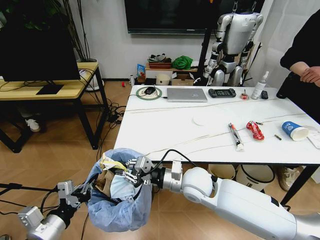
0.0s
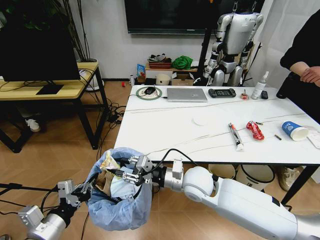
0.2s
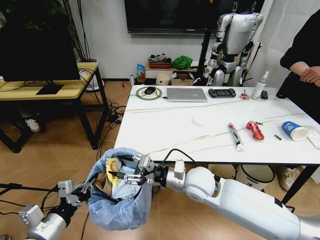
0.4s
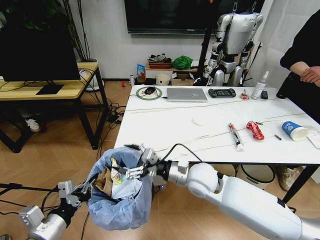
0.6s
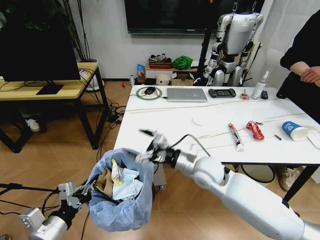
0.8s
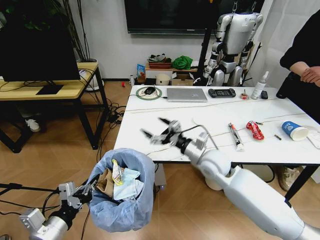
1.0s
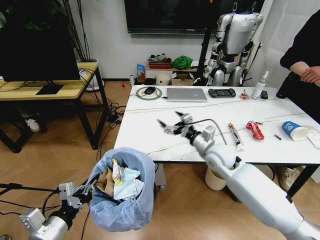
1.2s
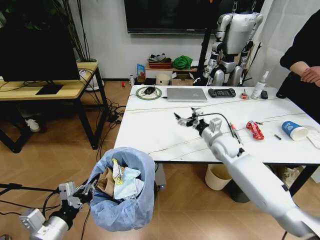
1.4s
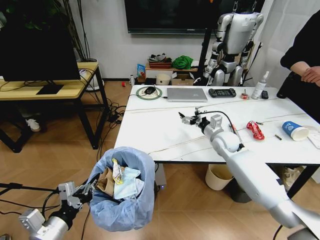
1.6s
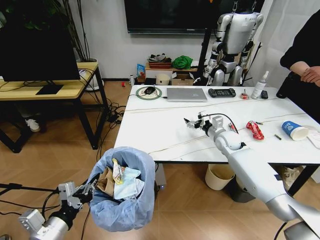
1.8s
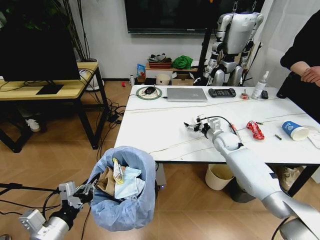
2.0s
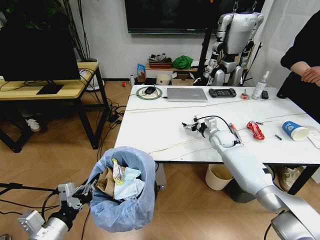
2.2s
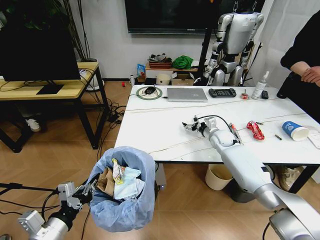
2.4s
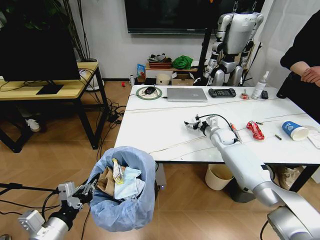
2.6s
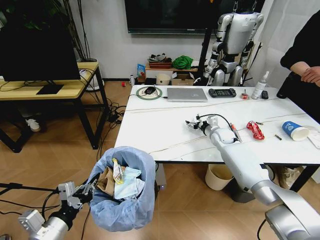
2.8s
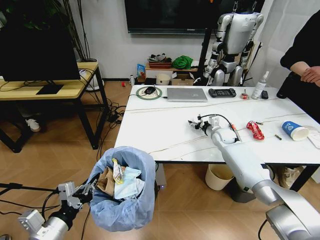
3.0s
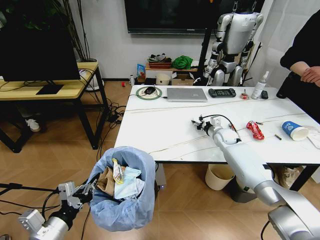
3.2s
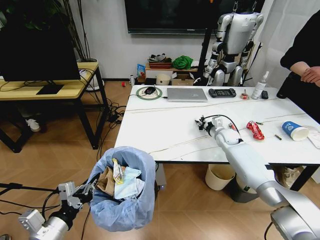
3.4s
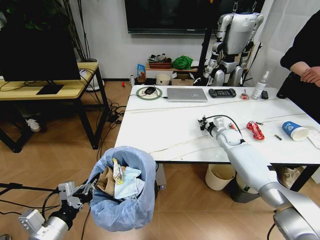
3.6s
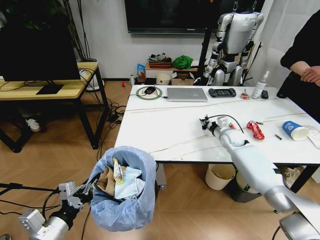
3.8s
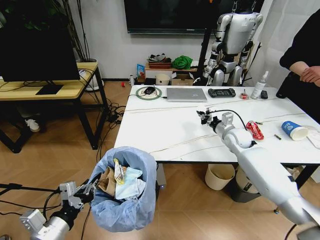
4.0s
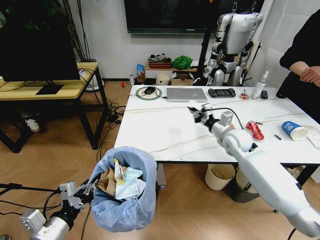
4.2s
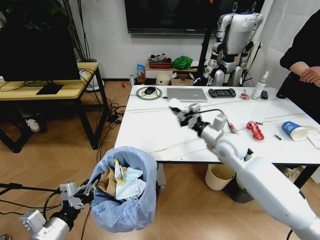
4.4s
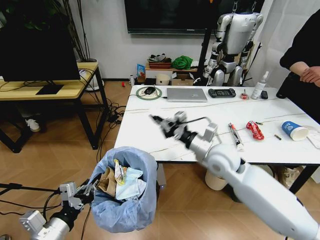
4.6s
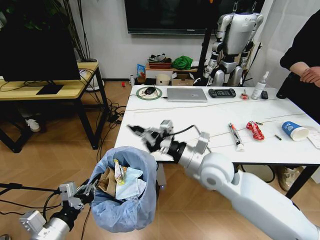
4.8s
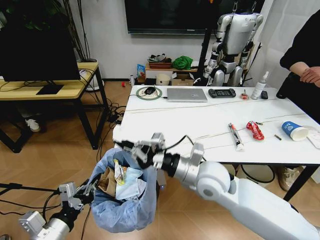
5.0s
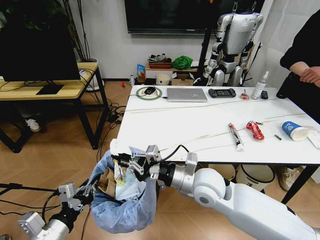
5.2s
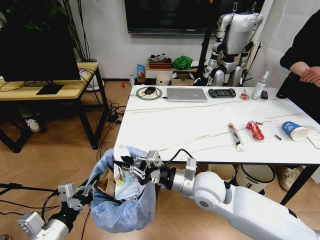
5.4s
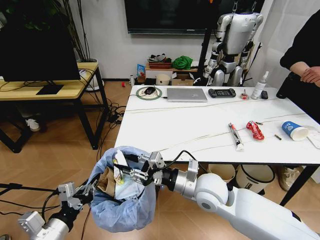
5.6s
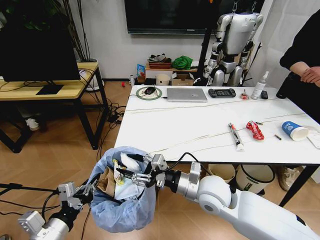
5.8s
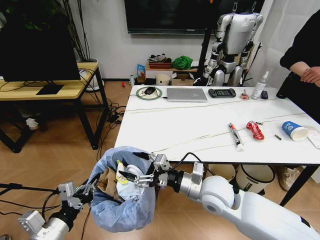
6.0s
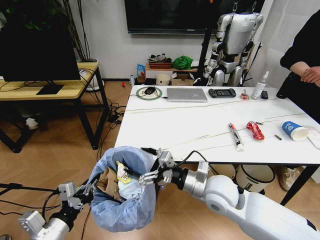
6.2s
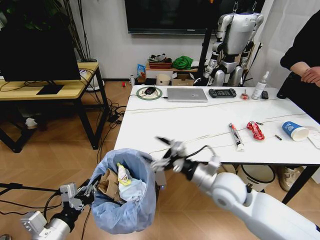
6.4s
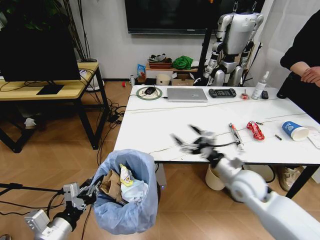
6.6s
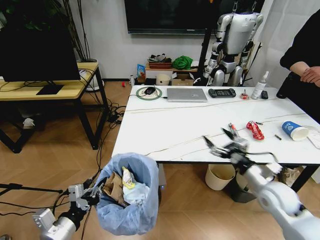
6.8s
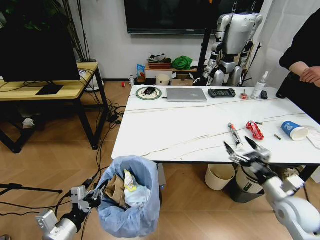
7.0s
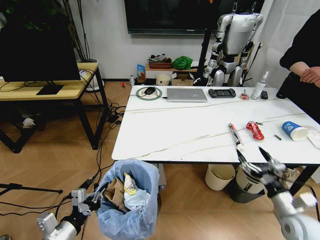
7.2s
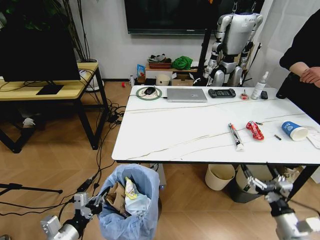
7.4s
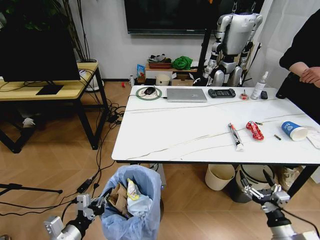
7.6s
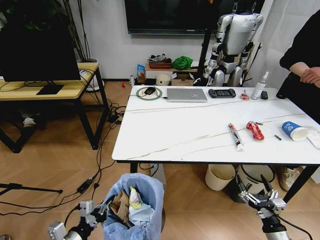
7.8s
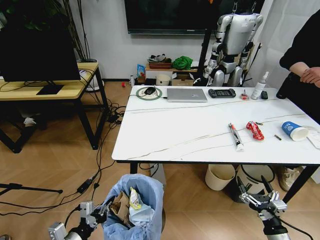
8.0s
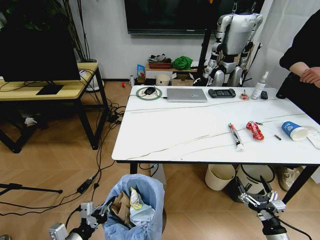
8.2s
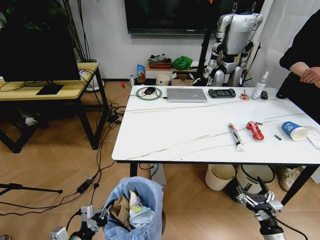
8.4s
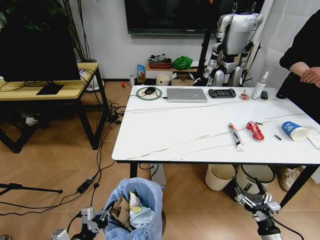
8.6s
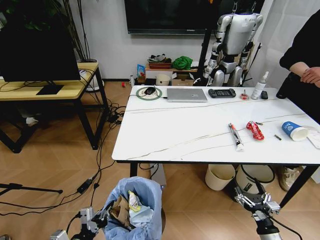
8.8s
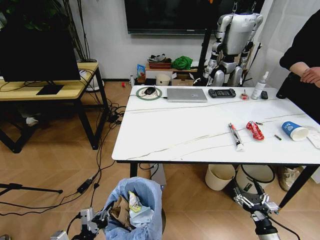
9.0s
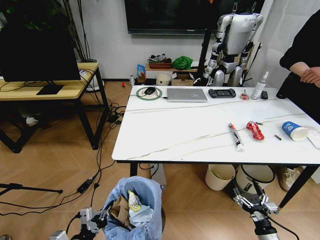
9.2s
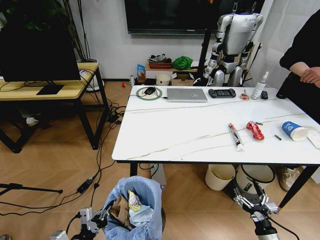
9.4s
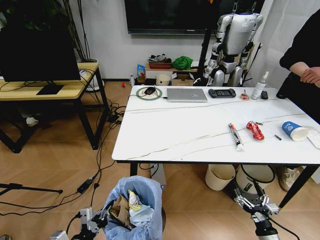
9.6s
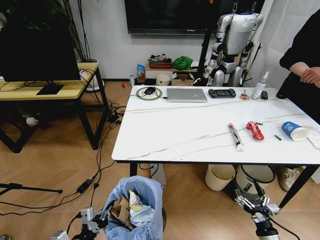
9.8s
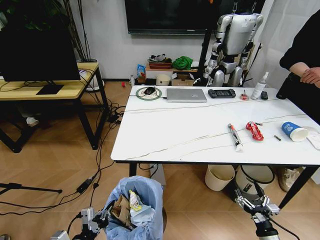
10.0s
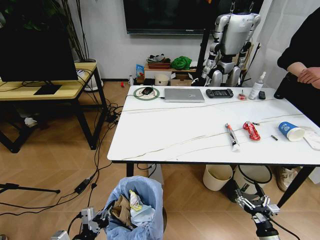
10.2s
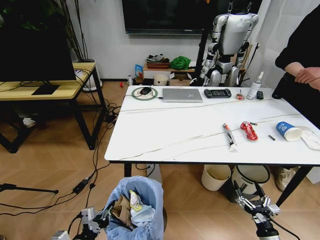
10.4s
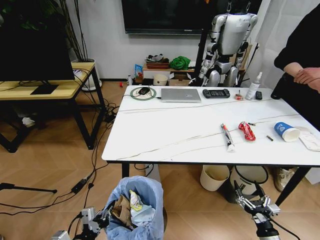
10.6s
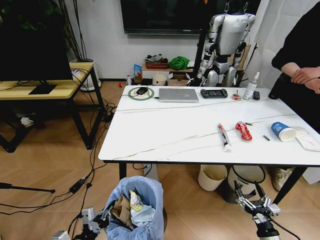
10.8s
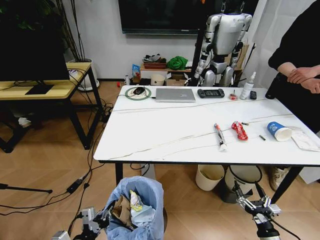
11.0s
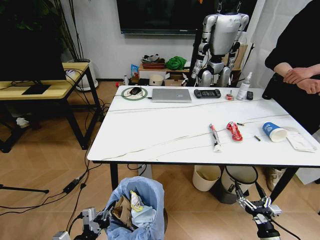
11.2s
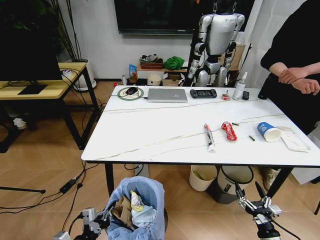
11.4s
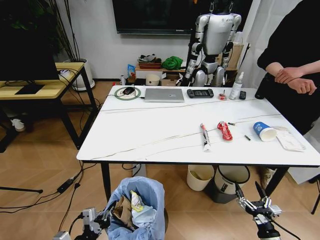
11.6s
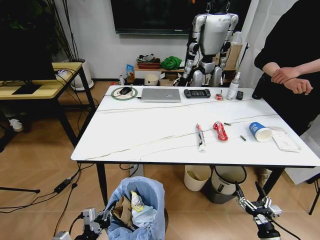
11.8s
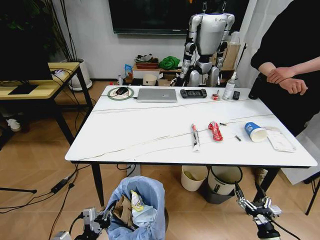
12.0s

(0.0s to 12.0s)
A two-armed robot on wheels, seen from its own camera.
Task of the whole recording: Pick up the trash bin and place the trash from the table into it.
0.0s - 1.6s: The right gripper heads forward and to the right, covering about 25 cm, and opens up.
1.6s - 3.0s: The right gripper goes approximately 5 cm forward.
3.0s - 4.4s: The right gripper is displaced backward, upward and to the left by about 20 cm, and closes.
4.4s - 6.0s: The right gripper is displaced backward and to the left by approximately 15 cm, and opens.
6.0s - 7.6s: The left gripper moves downward, some 5 cm. Meanwhile the right gripper is displaced to the right, backward and downward by roughly 30 cm.
7.6s - 9.0s: The left gripper ends up roughly 5 cm from where it was. Meanwhile the right gripper heads downward, covering approximately 5 cm.

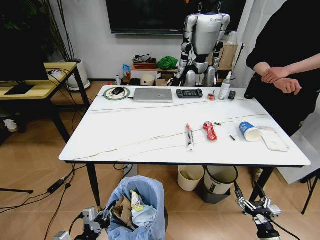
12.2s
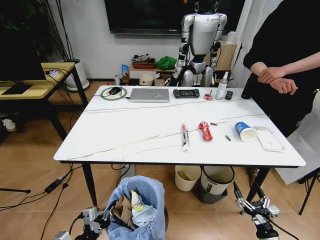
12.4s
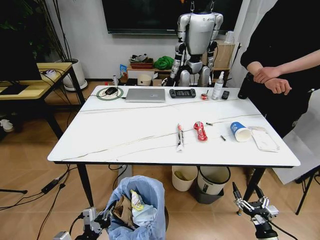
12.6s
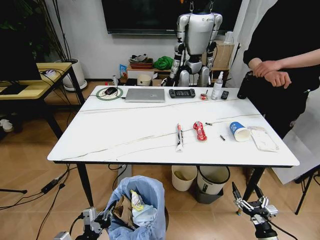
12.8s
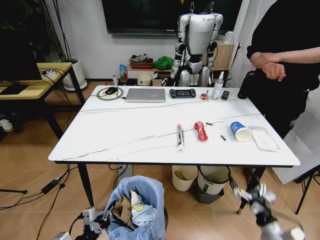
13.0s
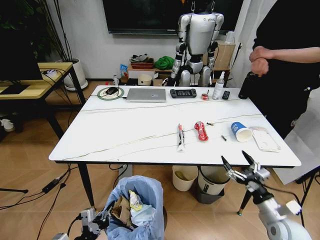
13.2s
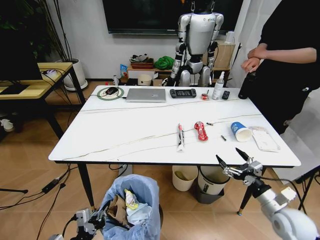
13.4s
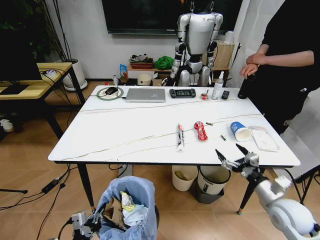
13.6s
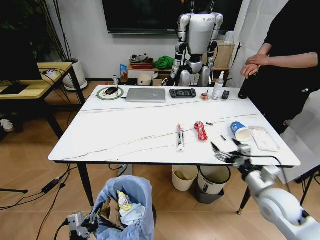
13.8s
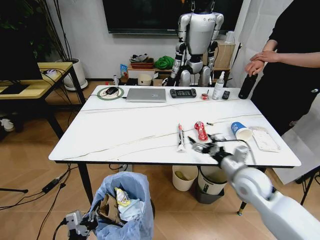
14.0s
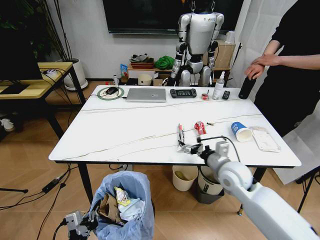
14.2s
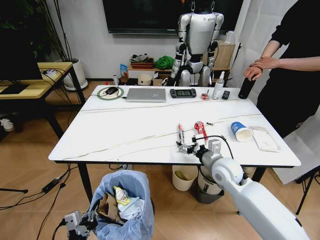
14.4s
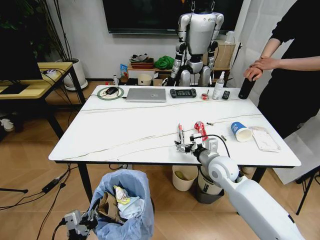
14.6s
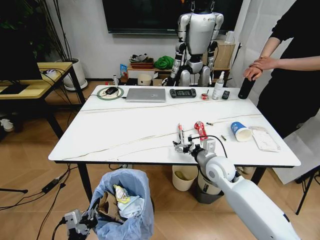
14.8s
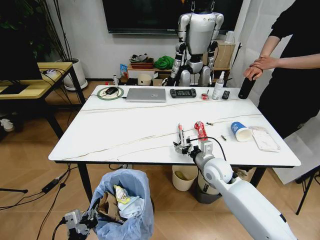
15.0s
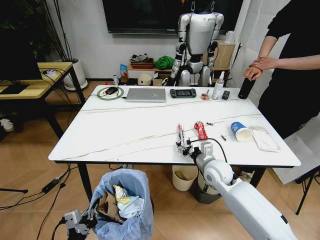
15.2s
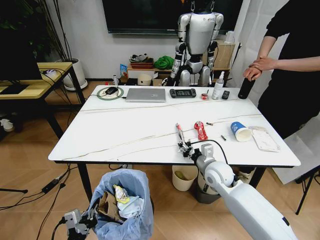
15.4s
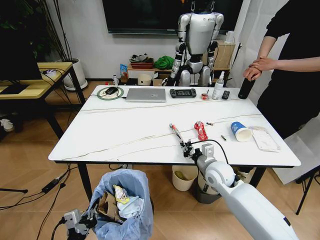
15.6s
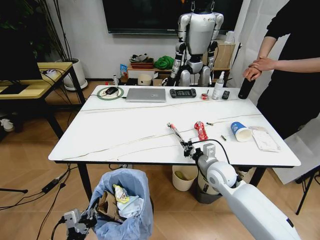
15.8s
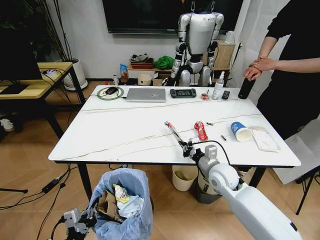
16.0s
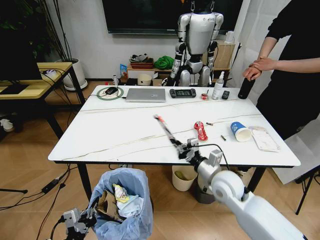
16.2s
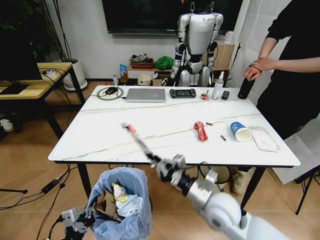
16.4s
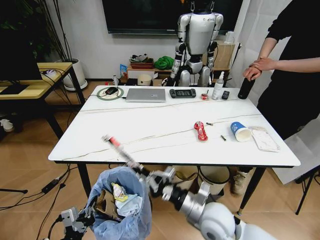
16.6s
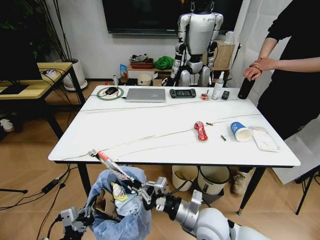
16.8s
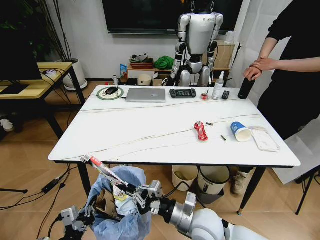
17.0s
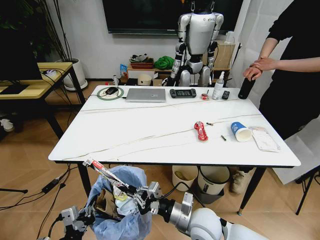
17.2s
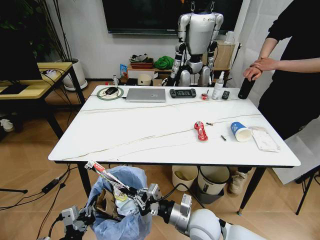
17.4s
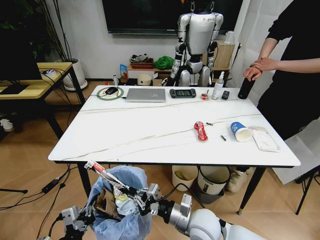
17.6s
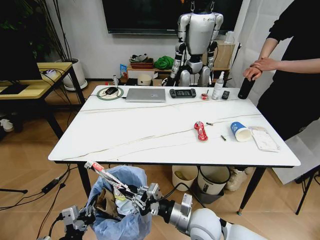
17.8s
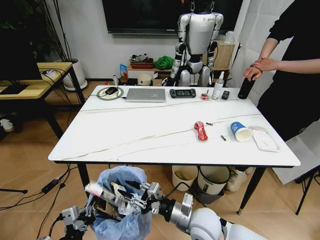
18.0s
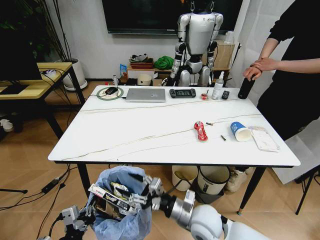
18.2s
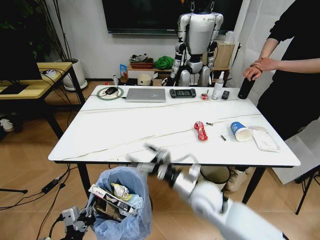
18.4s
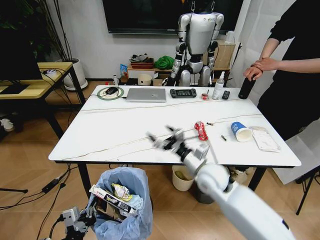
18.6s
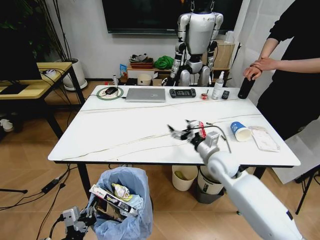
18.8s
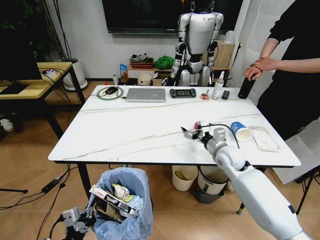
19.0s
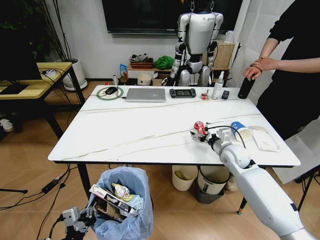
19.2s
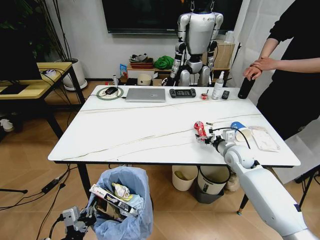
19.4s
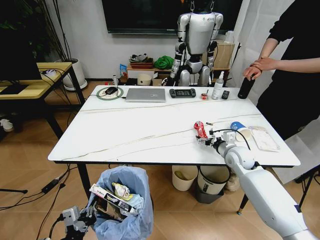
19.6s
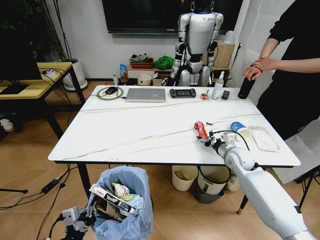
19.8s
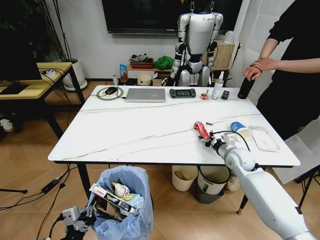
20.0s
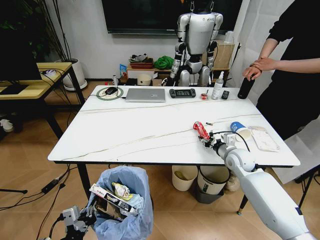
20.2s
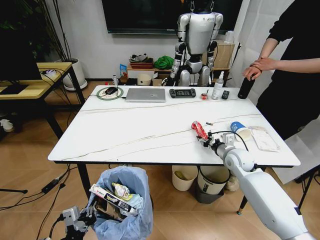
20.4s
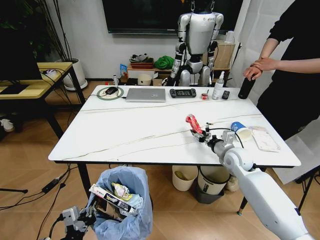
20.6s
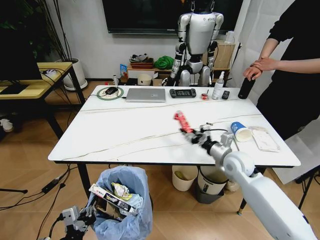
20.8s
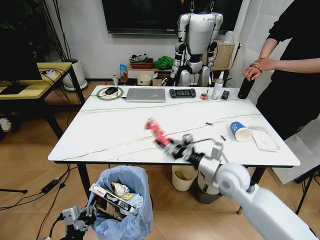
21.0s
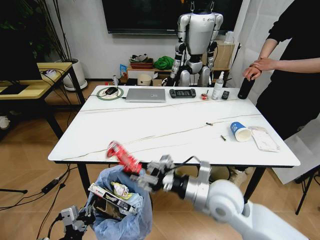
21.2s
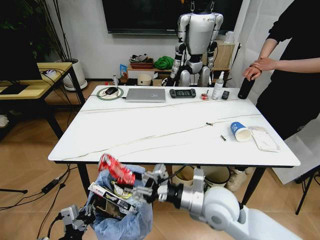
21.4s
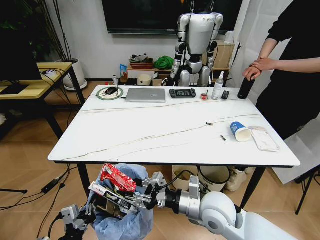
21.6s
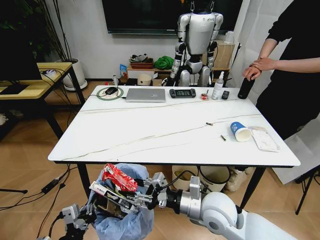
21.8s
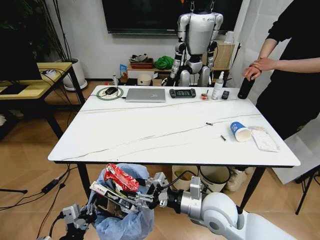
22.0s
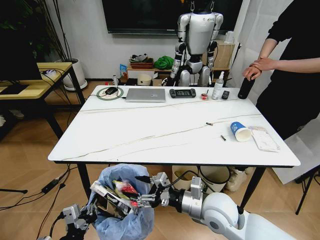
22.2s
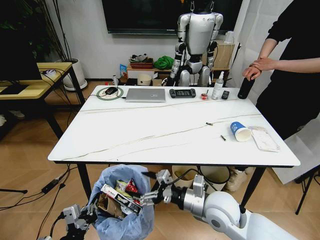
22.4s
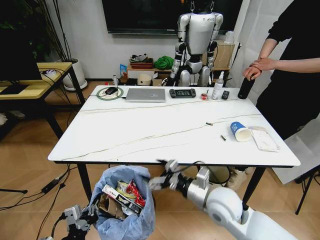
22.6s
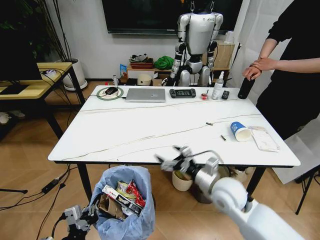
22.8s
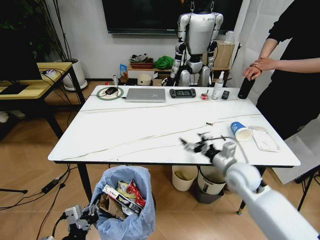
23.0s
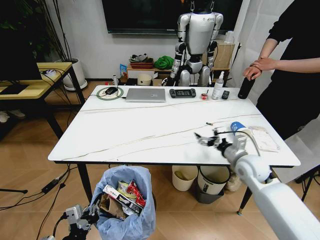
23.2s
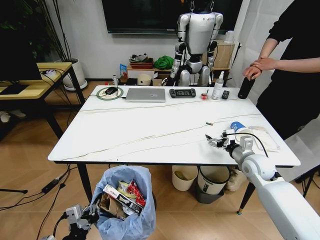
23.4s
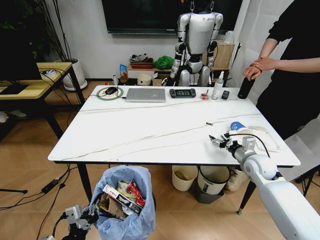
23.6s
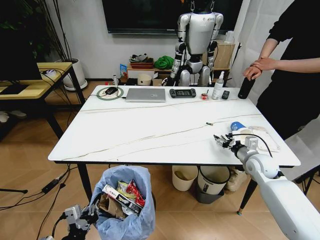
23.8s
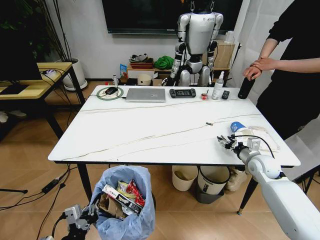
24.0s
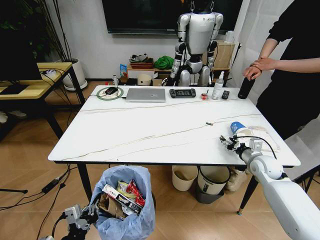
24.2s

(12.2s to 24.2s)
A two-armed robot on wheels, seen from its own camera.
Task of the whole recording: Pick up the trash bin and place the trash from the table into it.
12.2s - 13.8s: The right gripper is displaced upward and forward by roughly 25 cm.
13.8s - 15.2s: The right gripper travels to the left and forward by some 15 cm, and closes up.
15.2s - 16.6s: The right gripper is displaced backward by approximately 15 cm, and closes.
16.6s - 18.2s: The right gripper opens its fingers.
18.2s - 19.8s: The right gripper heads forward and to the right, covering about 30 cm.
19.8s - 21.2s: The right gripper goes some 25 cm backward, to the left and upward.
21.2s - 22.6s: The right gripper opens up.
22.6s - 24.2s: The right gripper is displaced to the right and forward by some 25 cm, and closes up.
